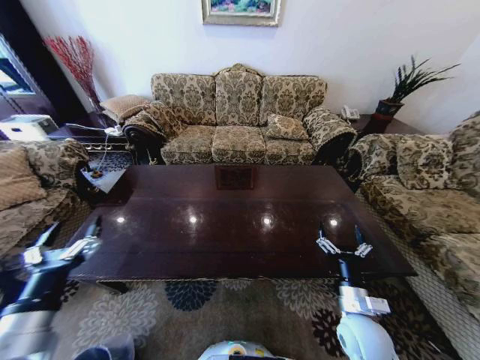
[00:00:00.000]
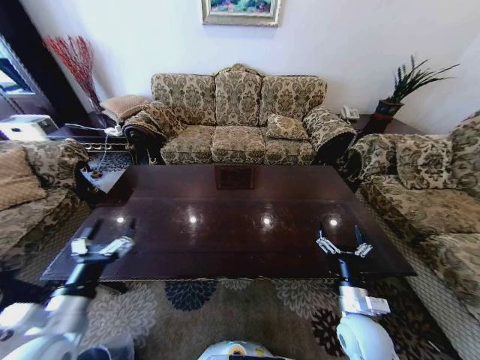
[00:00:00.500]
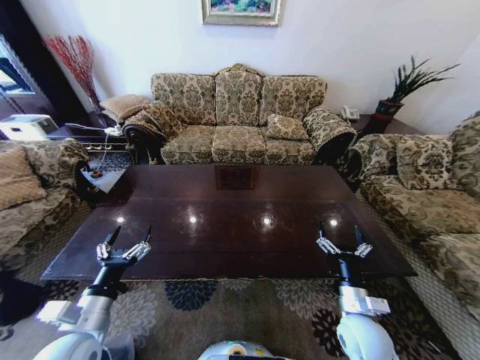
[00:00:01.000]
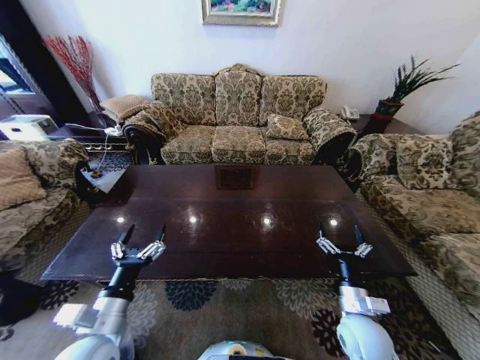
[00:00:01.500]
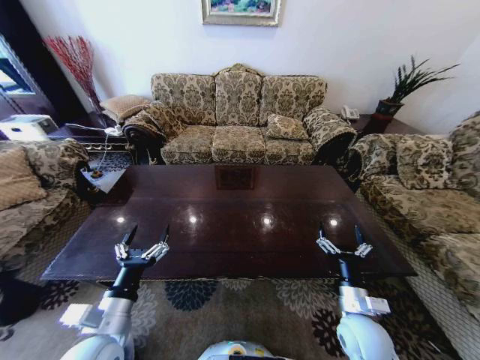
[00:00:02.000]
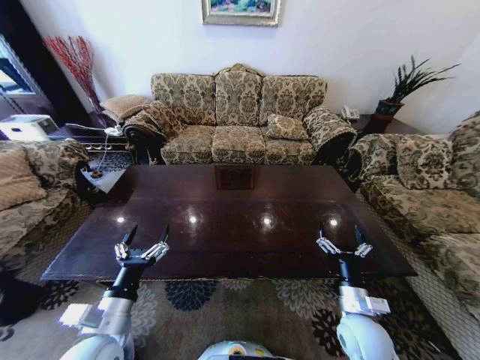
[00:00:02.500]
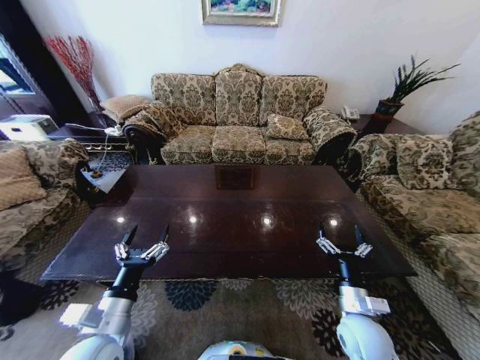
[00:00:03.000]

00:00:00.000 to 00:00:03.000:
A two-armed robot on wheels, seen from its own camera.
Task of the whole recording: Move to the front of the table and place the trash on the table into the trash bin.
00:00:00.000 to 00:00:01.500: The left gripper moves to the right, some 10 cm.
00:00:01.500 to 00:00:03.000: The two grippers keep their place.
